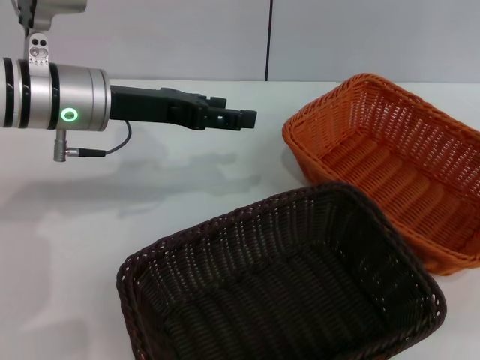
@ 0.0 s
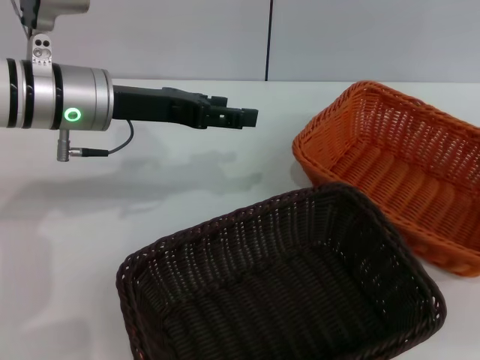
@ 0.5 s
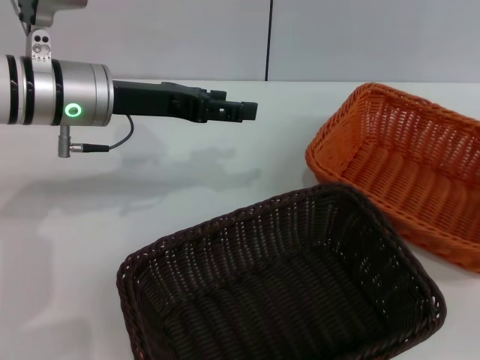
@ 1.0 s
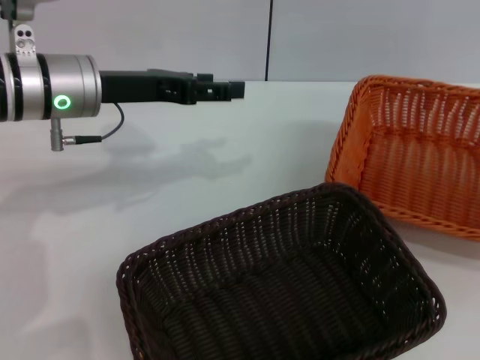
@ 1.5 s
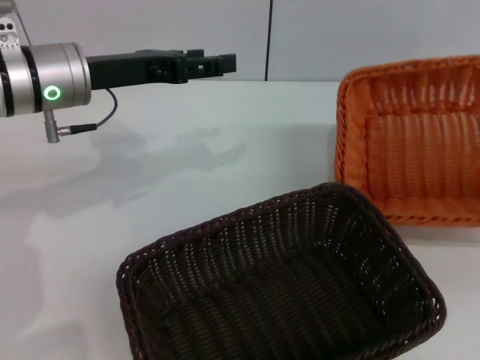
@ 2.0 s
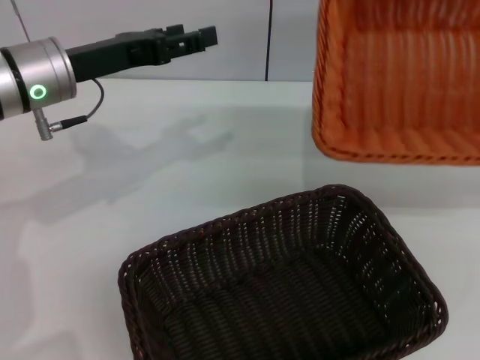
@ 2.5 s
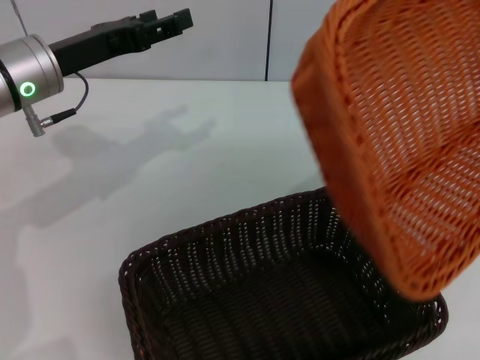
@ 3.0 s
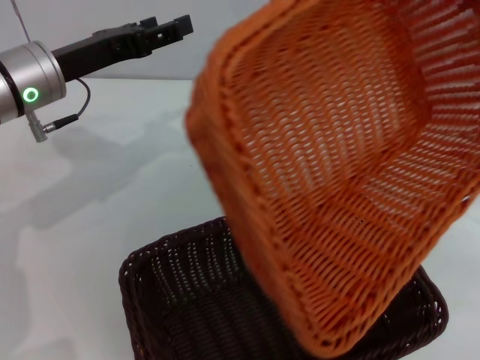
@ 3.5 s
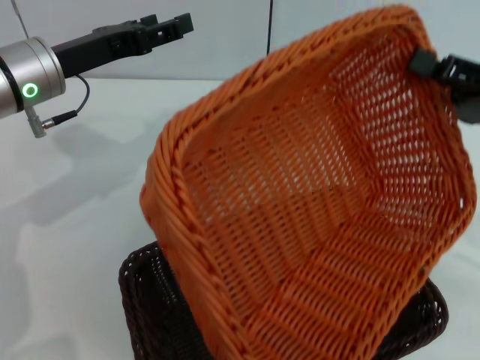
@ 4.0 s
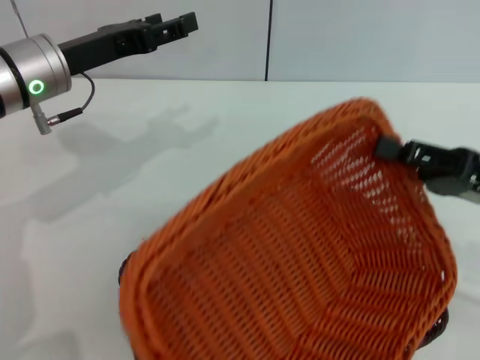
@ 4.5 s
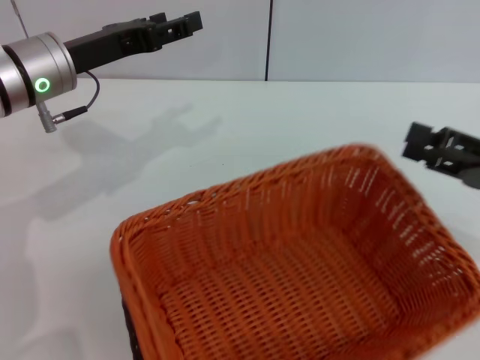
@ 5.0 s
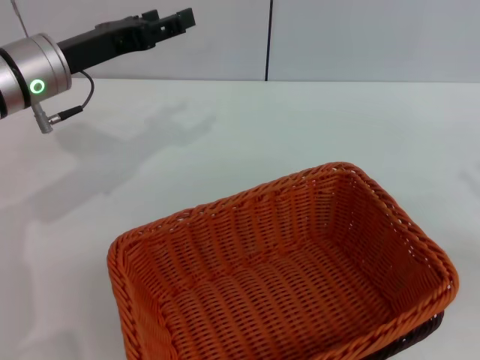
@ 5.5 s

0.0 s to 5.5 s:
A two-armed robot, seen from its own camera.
Step, 0.0 to 2.0 s: Pick up the light basket with the right gripper.
Step, 2.5 to 5.0 s: Place the light basket on the dark basket with the right gripper.
0.0 to 2.0 s: The right gripper is displaced to the right by approximately 5 cm, and closes its fingers.
2.0 to 3.5 s: The right gripper is displaced to the left by some 15 cm.
3.5 to 5.5 s: The right gripper moves to the right, downward and backward, roughly 10 cm, and opens.
